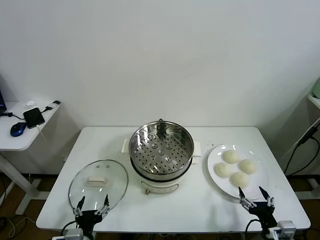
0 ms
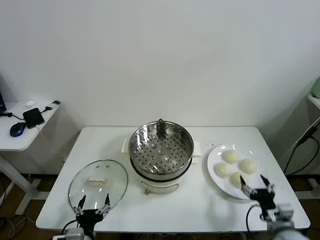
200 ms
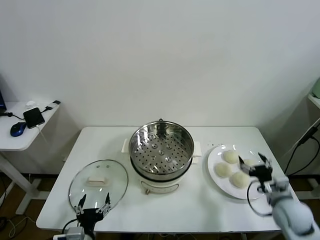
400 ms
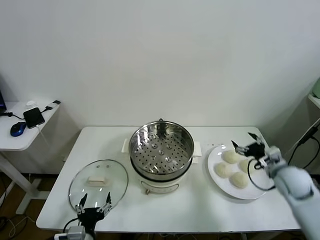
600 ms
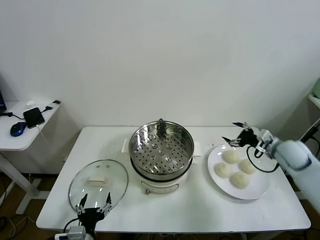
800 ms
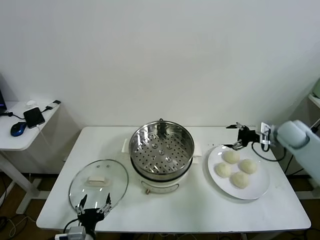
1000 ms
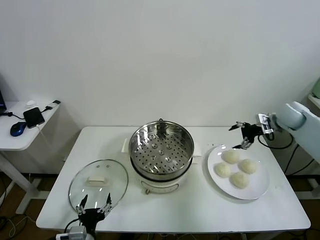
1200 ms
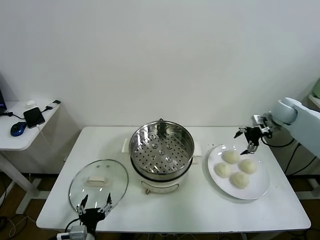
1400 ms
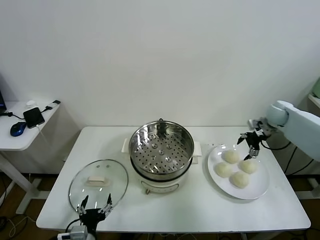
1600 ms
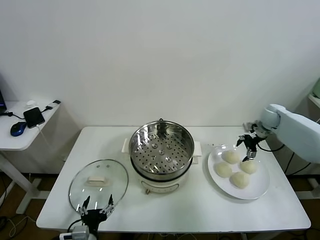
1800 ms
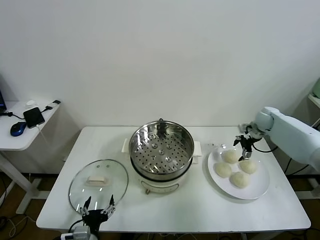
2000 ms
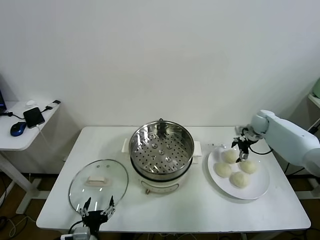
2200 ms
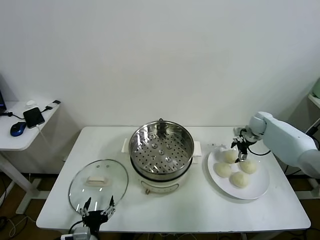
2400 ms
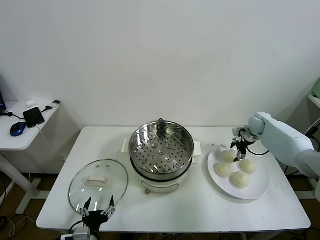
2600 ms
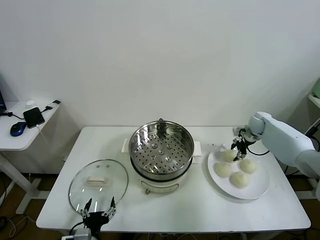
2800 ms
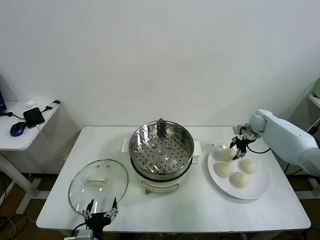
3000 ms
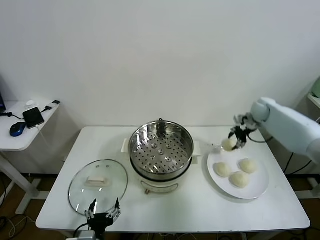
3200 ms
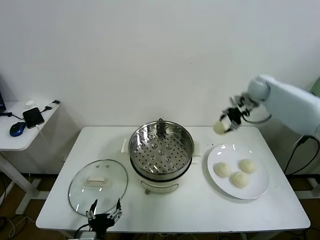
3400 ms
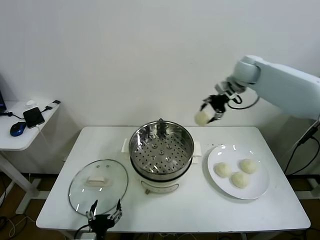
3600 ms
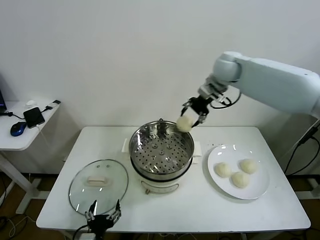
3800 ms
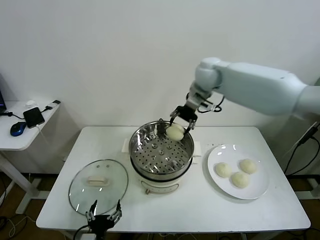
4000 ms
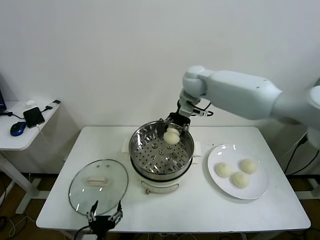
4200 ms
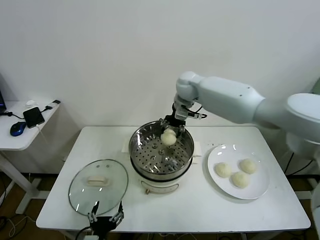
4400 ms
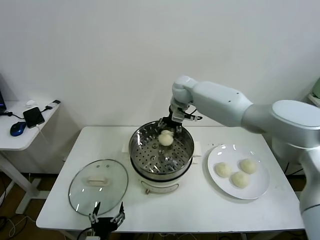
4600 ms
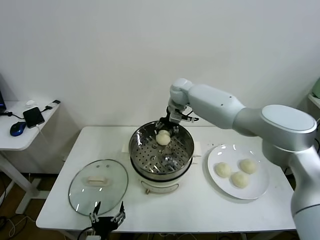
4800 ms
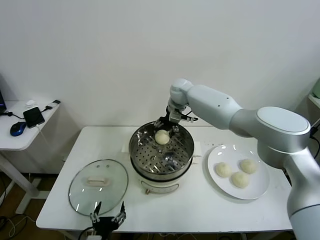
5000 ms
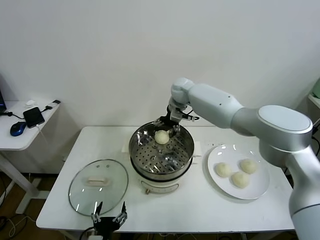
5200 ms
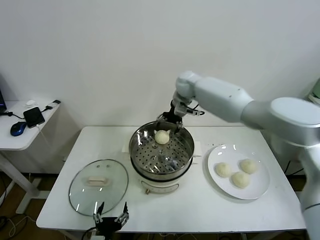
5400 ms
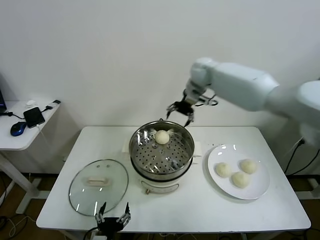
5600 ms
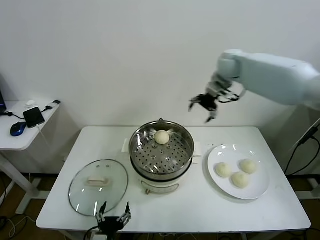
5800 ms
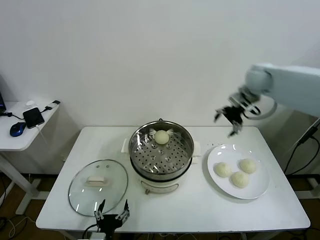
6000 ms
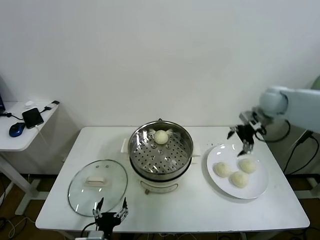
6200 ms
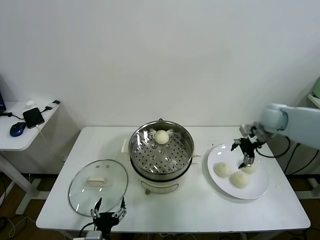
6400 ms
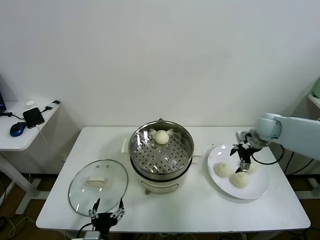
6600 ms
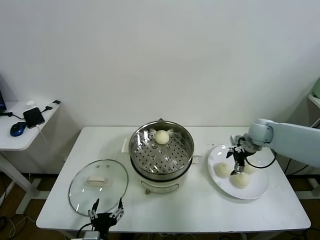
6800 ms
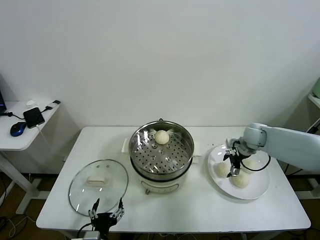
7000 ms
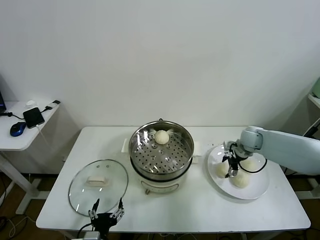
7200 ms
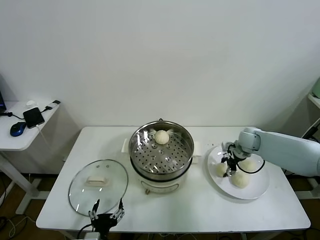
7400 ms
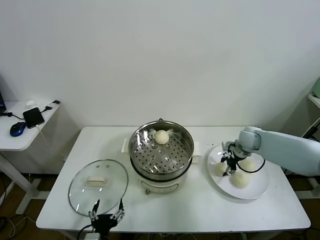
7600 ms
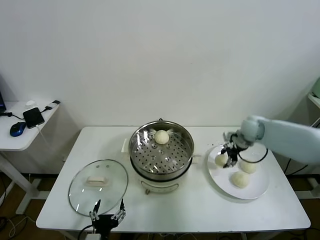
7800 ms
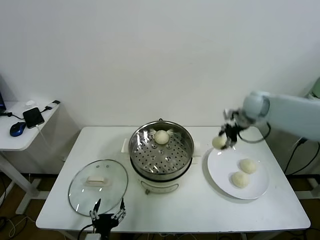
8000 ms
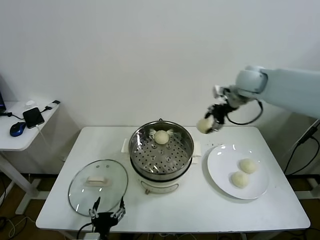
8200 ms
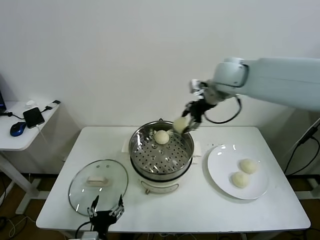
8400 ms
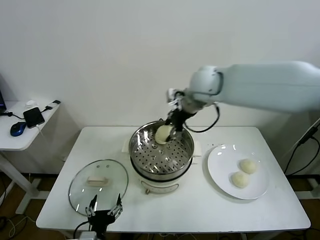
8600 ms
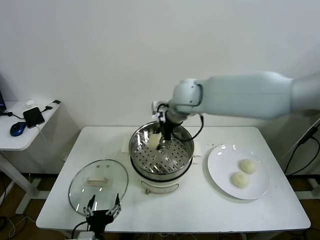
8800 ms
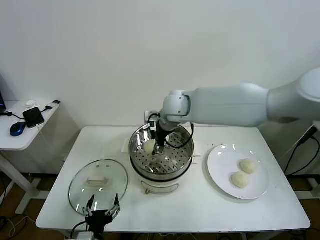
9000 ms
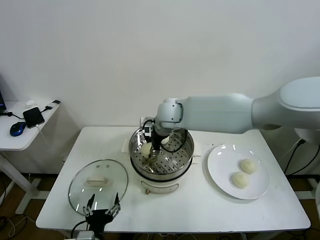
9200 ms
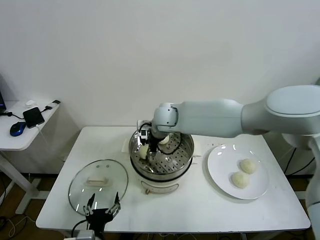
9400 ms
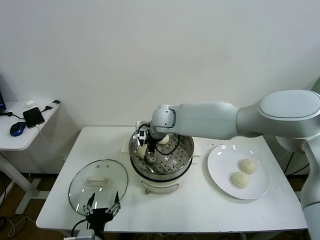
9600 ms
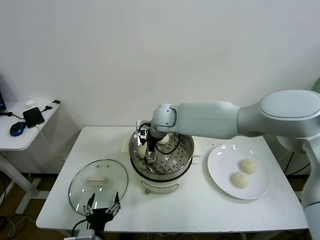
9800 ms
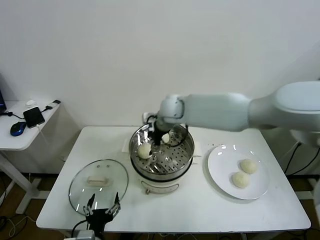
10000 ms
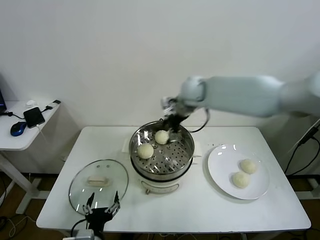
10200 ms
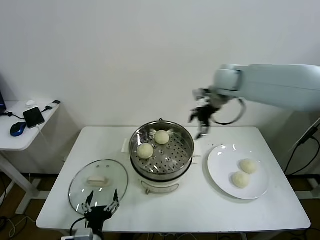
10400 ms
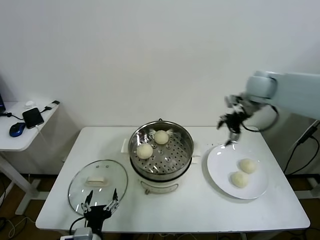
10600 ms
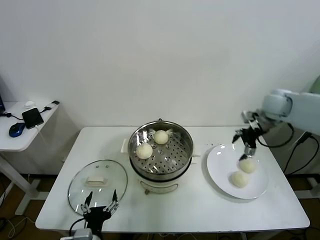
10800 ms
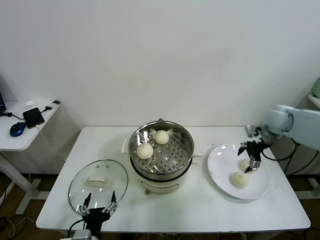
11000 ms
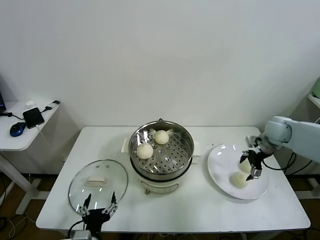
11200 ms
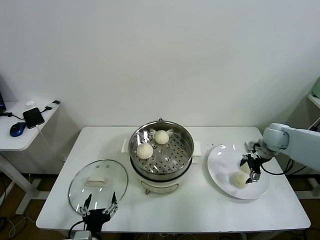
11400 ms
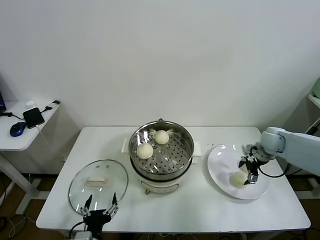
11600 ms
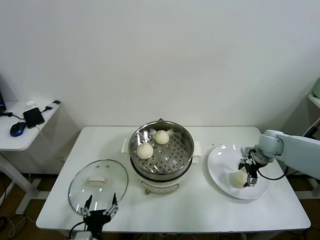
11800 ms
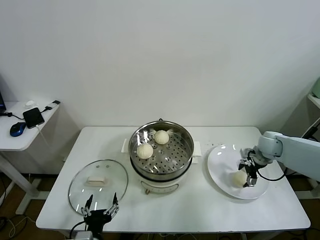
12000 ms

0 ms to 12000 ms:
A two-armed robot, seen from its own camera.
Task of the whole recording: take steamed baozi put them in steamer.
Step, 0 ms to 2600 ms: Grasp the baozi in the plate with right gripper.
Step, 2800 ms to 5000 ms: Place the baozi on the steamer with right gripper.
Step, 5200 ms to 7400 ms: Grasp the baozi in the plate with right gripper.
Step, 7600 ms to 9800 ms: Place the baozi on the steamer with right gripper.
1600 ms to 3000 ms: The right gripper closes.
3000 ms to 4400 ms: The right gripper goes some 35 cm to the left and upward.
4400 ms to 6000 ms: The right gripper travels to the right by some 25 cm, and opens its fingers.
6000 ms to 7600 ms: The right gripper moves downward, roughly 20 cm, and closes up.
7600 ms to 9000 ms: The right gripper shifts roughly 35 cm to the left and upward.
9000 ms to 10400 ms: The right gripper moves to the right, approximately 20 cm, and opens its fingers.
10400 ms to 12000 ms: The right gripper is displaced downward and to the right by some 30 cm.

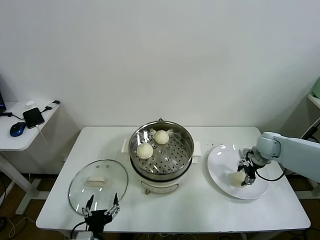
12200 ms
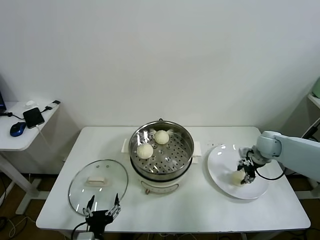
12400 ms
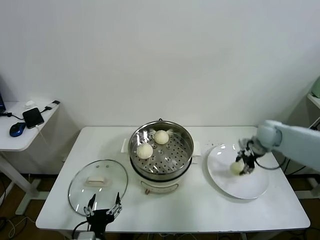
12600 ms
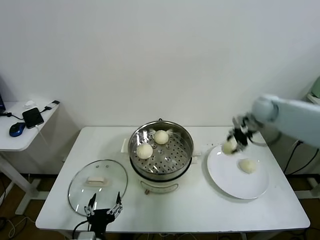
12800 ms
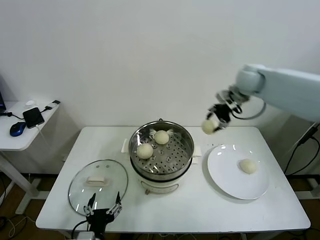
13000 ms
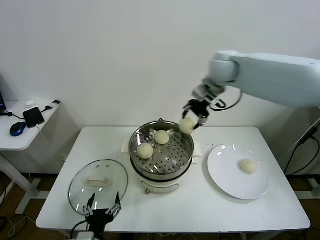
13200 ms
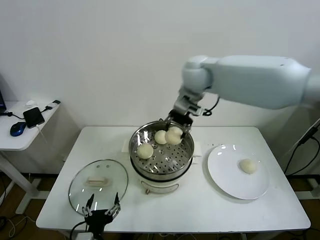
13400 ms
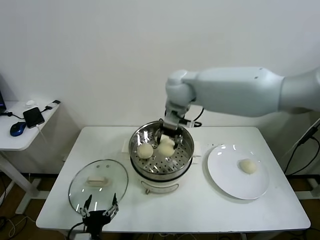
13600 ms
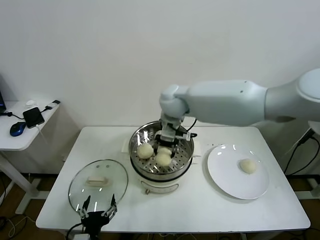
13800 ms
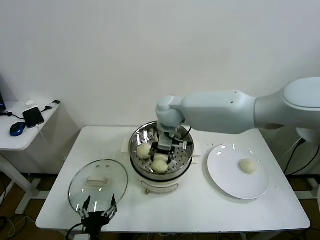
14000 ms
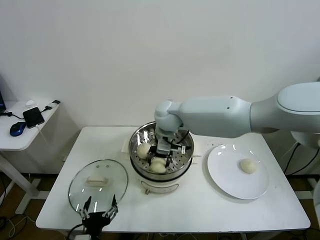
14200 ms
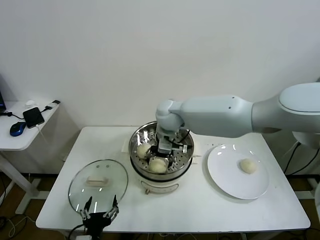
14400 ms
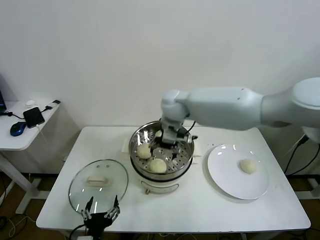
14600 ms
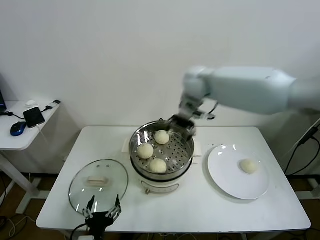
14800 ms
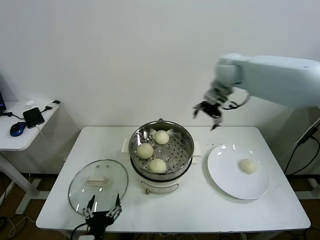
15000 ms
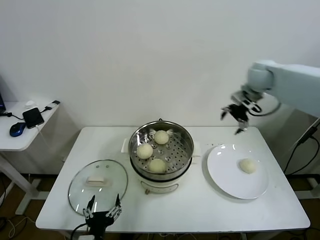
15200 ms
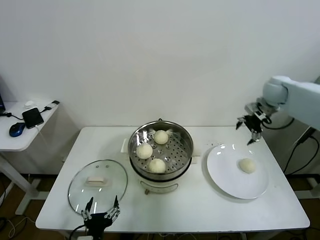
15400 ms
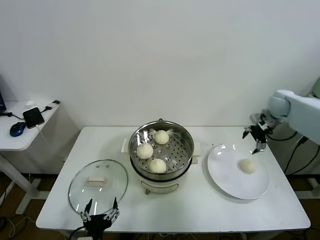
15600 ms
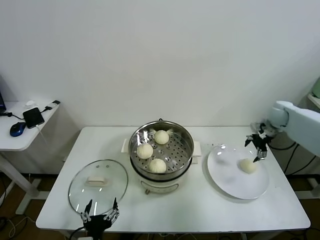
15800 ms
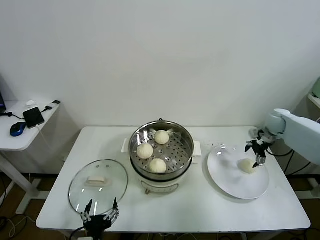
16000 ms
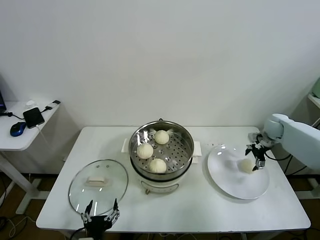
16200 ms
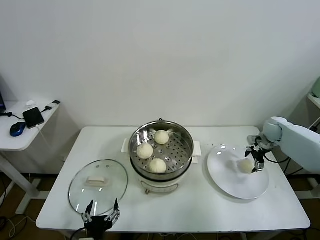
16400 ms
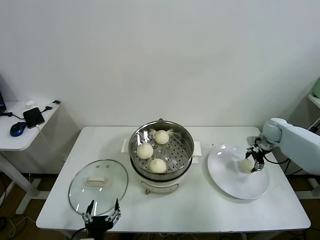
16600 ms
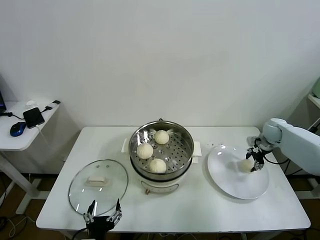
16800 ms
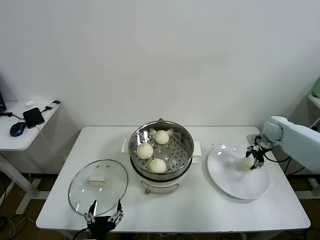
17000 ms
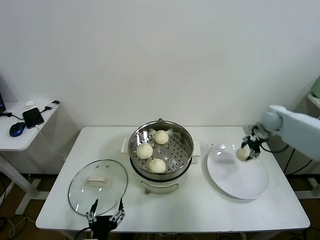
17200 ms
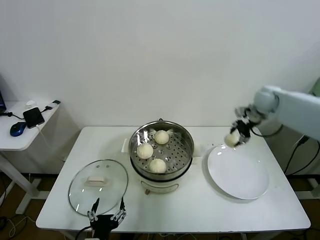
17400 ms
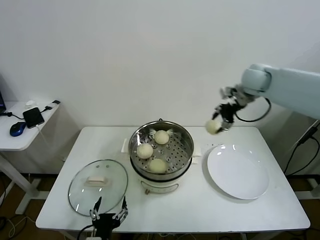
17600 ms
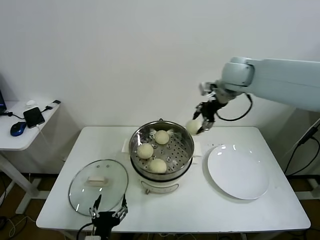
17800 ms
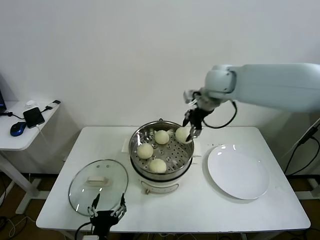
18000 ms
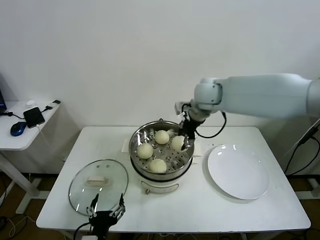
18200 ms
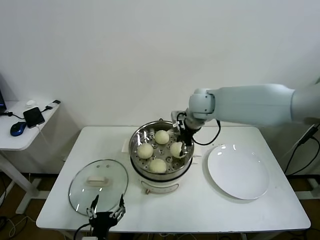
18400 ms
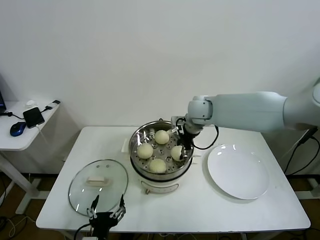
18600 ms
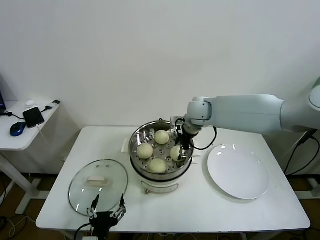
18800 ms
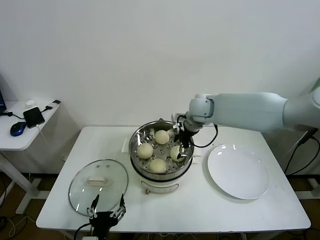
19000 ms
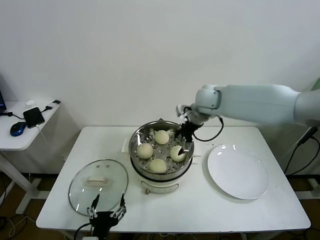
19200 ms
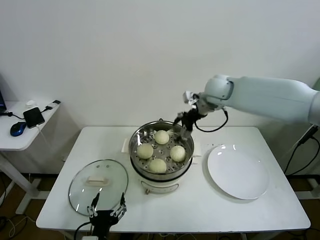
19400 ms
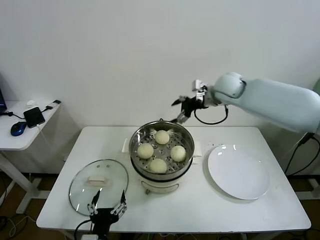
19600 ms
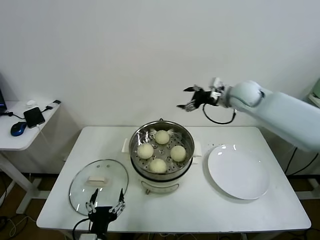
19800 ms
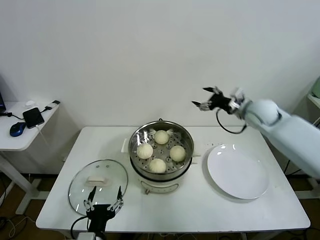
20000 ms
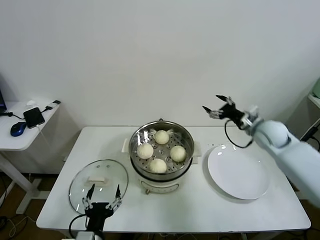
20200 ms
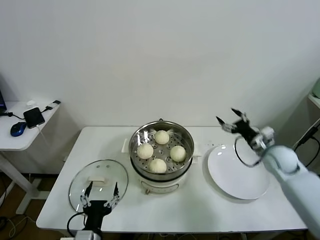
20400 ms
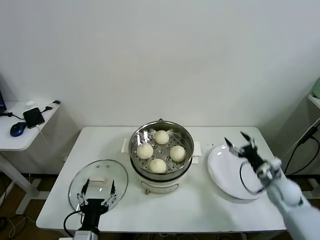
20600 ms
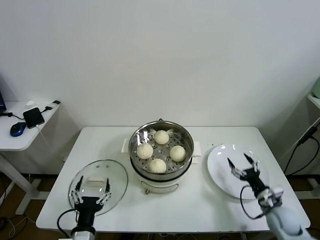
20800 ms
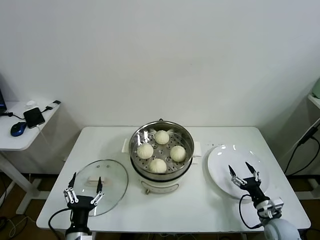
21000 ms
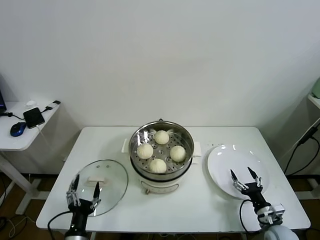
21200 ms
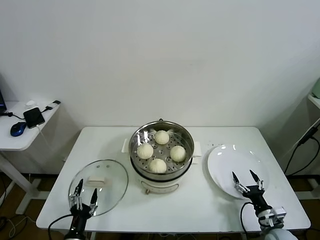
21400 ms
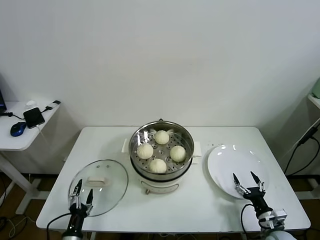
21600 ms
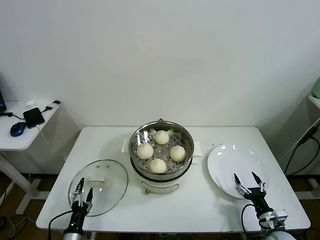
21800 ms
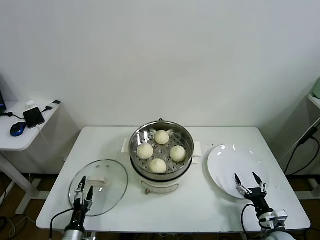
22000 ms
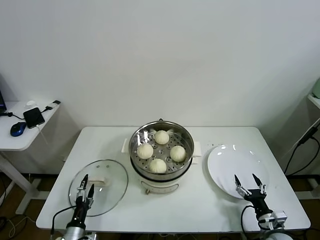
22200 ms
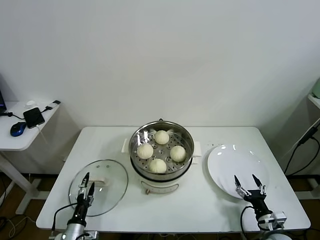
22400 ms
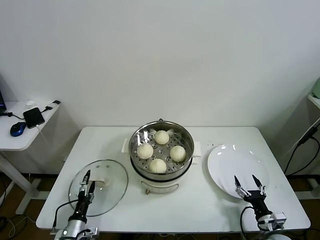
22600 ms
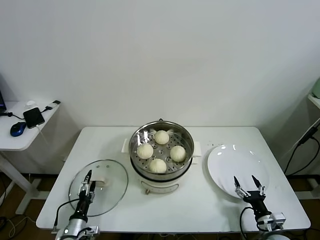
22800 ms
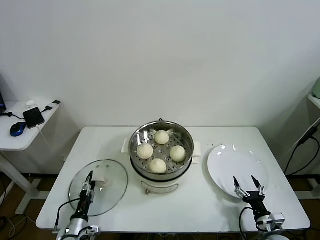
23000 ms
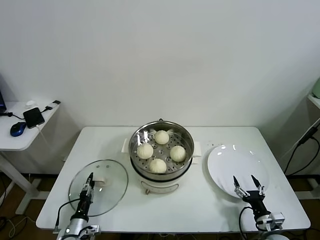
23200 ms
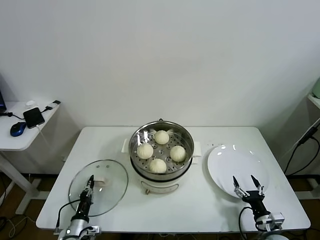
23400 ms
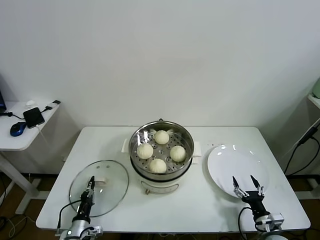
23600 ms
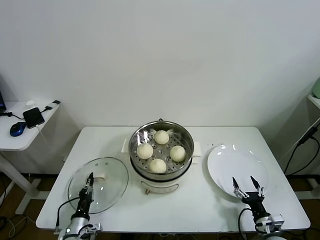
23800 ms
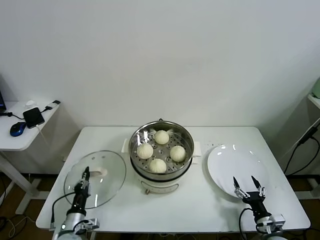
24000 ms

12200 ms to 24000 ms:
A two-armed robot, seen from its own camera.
Task of the whole recording: take steamed baozi put them in steamer.
Step, 12400 ms to 14400 ms: Place the baozi on the steamer with right gripper.
Step, 14600 ms to 16600 ms: Grasp the baozi in the plate with right gripper.
Step, 17000 ms to 19000 ms: Place the baozi on the steamer with right gripper.
Step, 19200 ms to 23400 ms: Grasp the pot lid with left gripper.
12200 ms to 13600 ms: The right gripper heads to the left and upward, covering some 40 cm.
13600 ms to 15200 ms: The right gripper shifts roughly 30 cm to the right, and opens its fingers.
15200 ms to 16600 ms: The right gripper goes approximately 25 cm downward and to the right.
16600 ms to 18200 ms: The right gripper heads to the left and upward, covering about 35 cm, and closes.
18200 ms to 19600 ms: The right gripper moves to the right, some 5 cm, and opens up.
19600 ms to 21000 ms: The right gripper goes about 50 cm downward, backward and to the right, while the left gripper goes some 5 cm to the left.
21000 ms to 22600 ms: The left gripper shifts some 15 cm downward, to the left and forward. Meanwhile the right gripper ends up roughly 5 cm from where it was.
22600 ms to 24000 ms: The left gripper closes its fingers.
